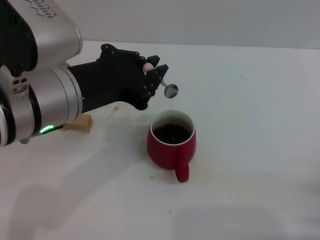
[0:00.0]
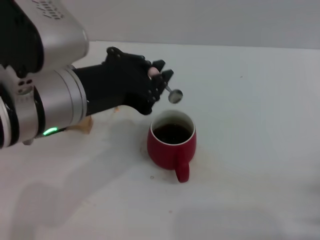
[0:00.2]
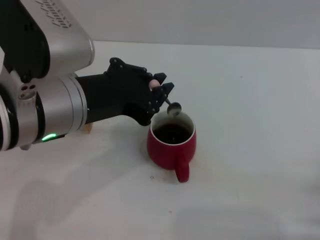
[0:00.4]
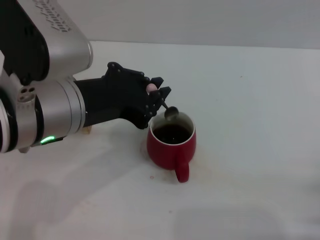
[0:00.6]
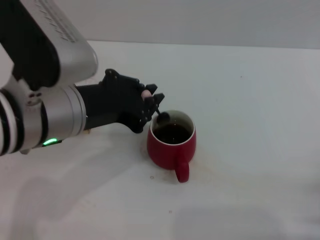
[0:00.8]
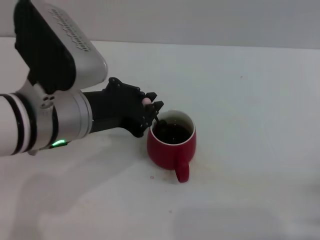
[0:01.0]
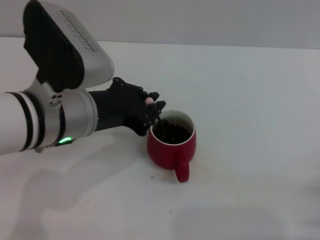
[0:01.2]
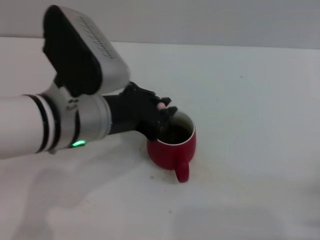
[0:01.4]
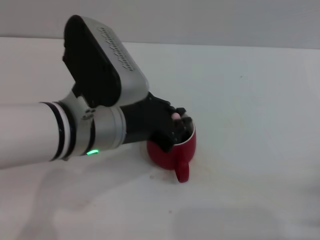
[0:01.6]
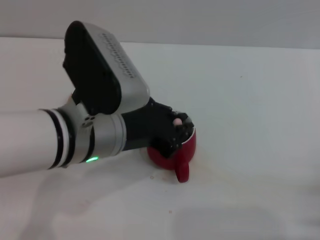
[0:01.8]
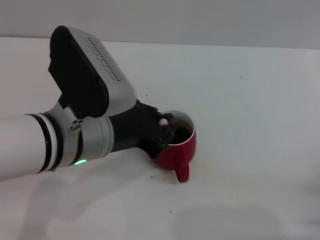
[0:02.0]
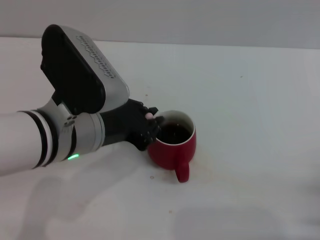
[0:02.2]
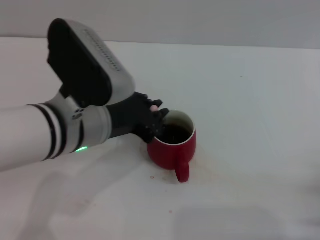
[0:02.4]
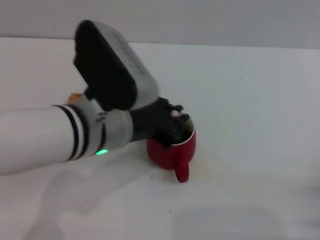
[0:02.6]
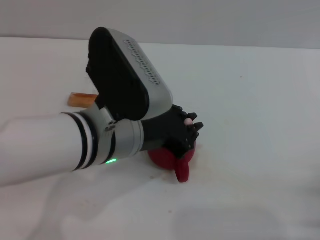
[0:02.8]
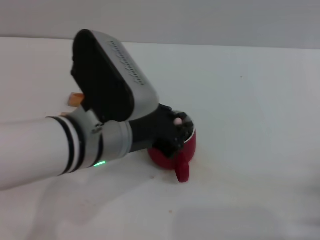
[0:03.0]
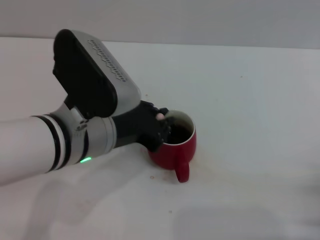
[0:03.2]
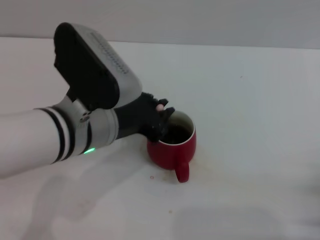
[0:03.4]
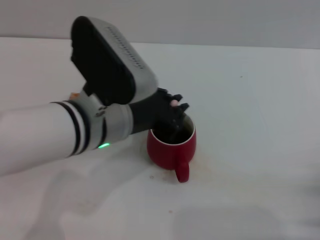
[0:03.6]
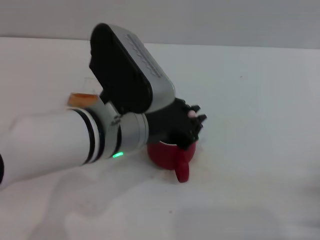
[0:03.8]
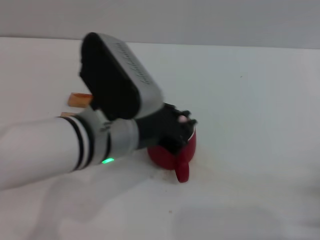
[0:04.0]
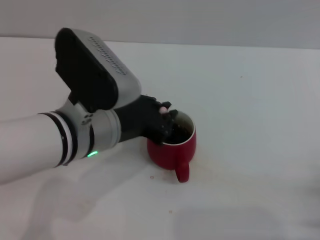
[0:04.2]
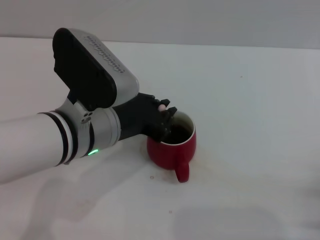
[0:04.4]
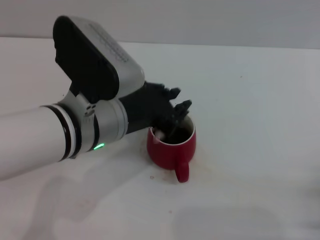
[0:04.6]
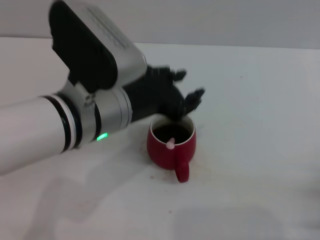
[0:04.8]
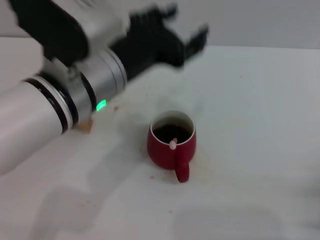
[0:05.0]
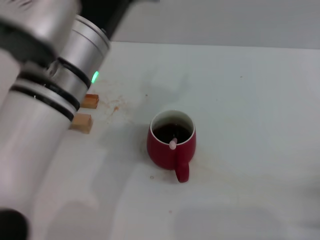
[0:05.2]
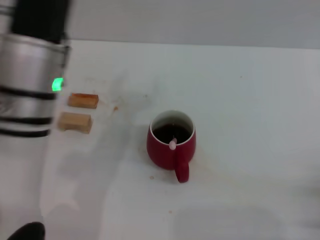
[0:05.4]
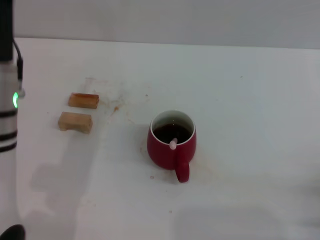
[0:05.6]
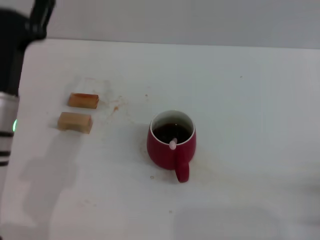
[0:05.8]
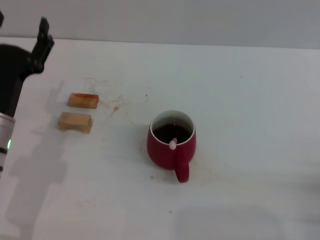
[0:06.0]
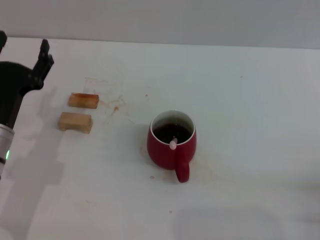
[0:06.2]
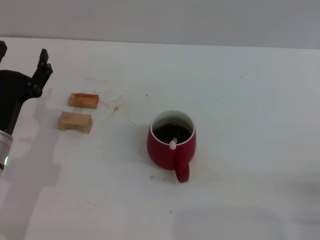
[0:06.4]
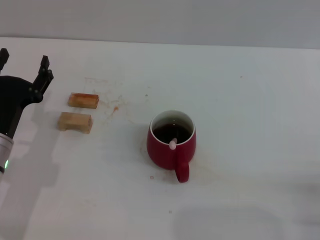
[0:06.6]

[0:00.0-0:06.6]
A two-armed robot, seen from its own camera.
Task of the whole recording: Move the red cup to the center, lift the pink spoon, stir it three times in the cup, and put the spoon into the cup.
Step, 0:00.0 to 0:05.0: Stir the coffee in the cup with the left gripper.
0:00.0 to 0:01.6: The left gripper moves downward, about 5 cm.
0:01.6 to 0:03.2: The grippers stay close to where they were, moving slightly.
0:03.2 to 0:05.0: The left gripper opens.
0:05.0 to 0:06.6: The left gripper moves downward and to the left, some 25 cm, and opens up.
